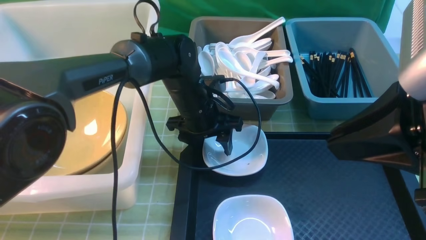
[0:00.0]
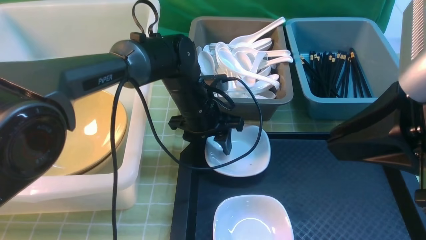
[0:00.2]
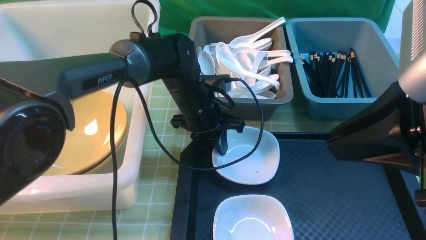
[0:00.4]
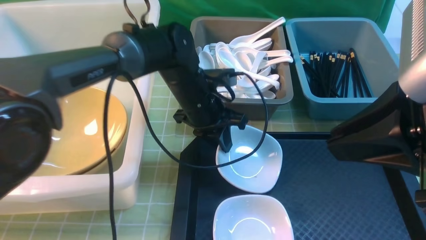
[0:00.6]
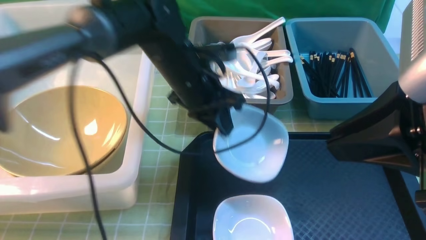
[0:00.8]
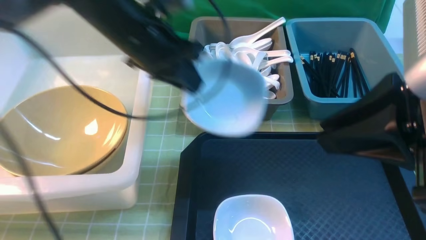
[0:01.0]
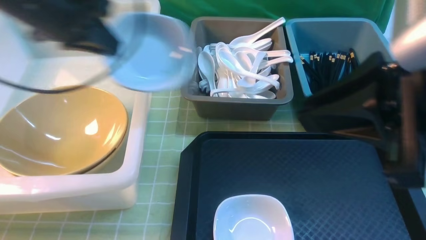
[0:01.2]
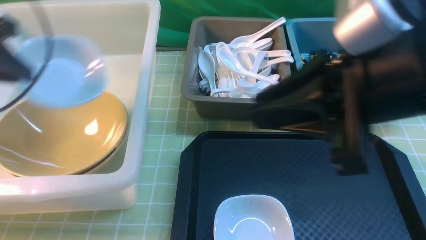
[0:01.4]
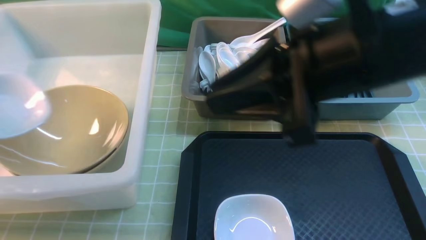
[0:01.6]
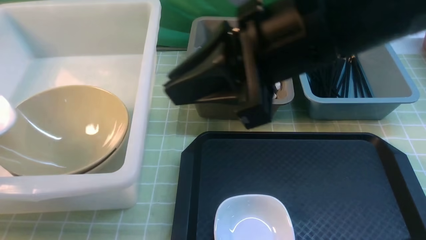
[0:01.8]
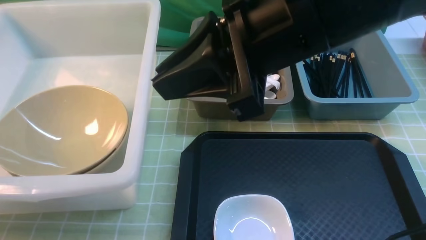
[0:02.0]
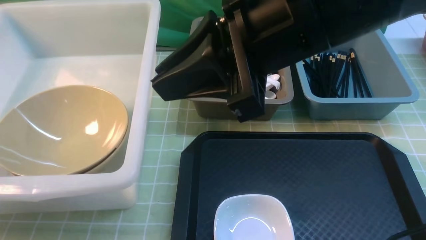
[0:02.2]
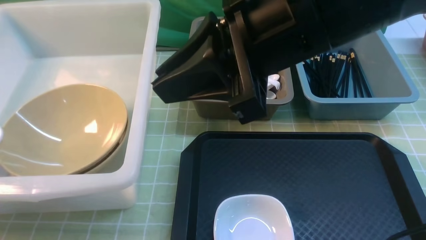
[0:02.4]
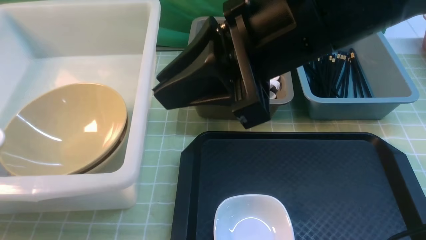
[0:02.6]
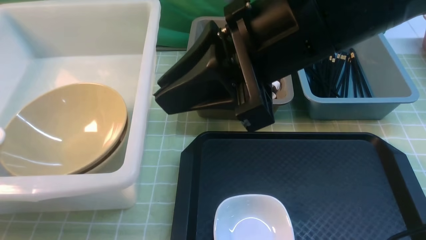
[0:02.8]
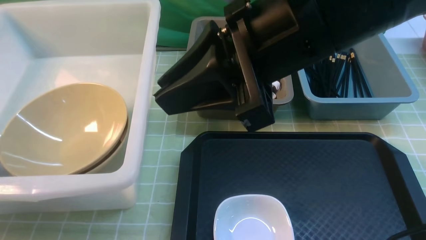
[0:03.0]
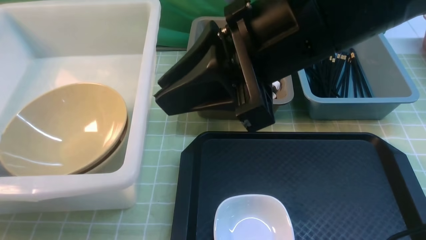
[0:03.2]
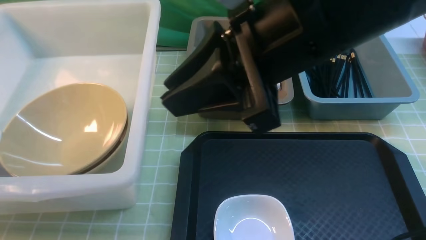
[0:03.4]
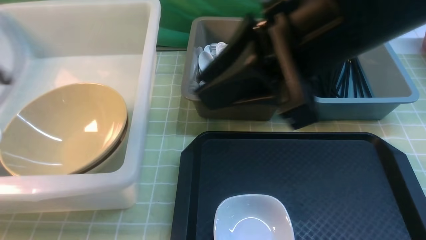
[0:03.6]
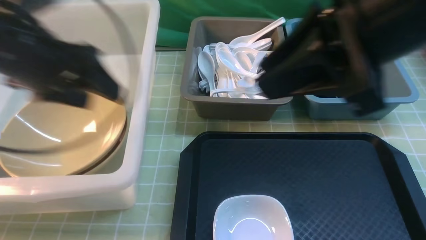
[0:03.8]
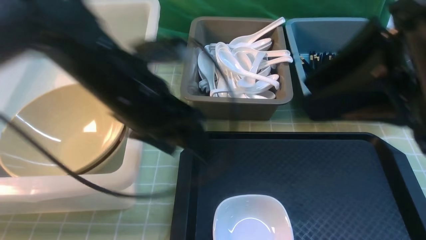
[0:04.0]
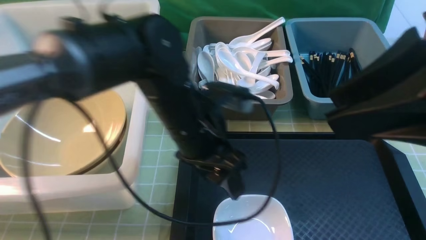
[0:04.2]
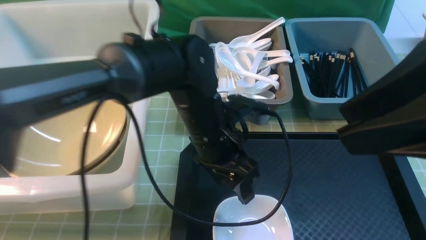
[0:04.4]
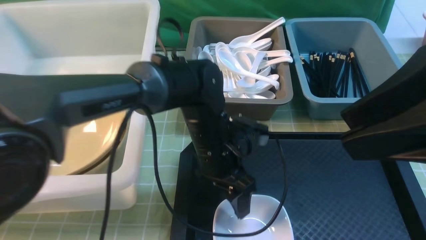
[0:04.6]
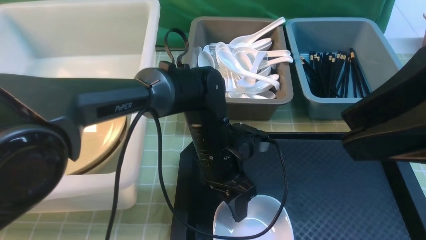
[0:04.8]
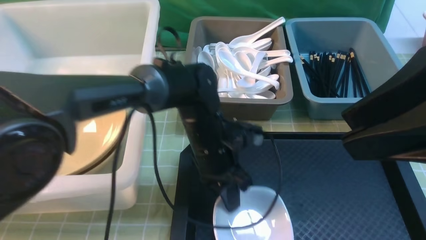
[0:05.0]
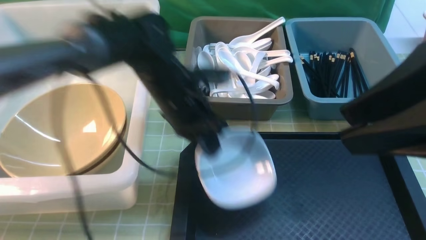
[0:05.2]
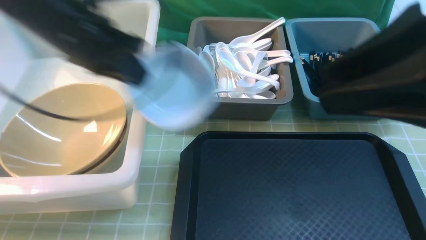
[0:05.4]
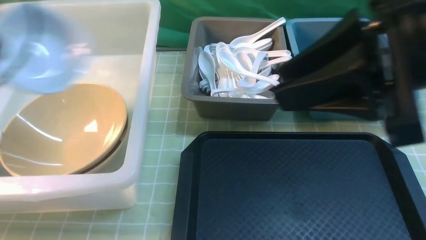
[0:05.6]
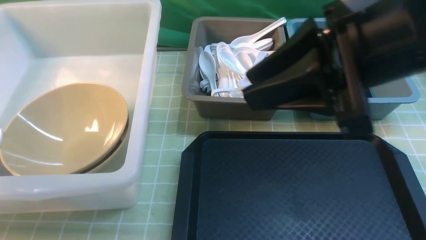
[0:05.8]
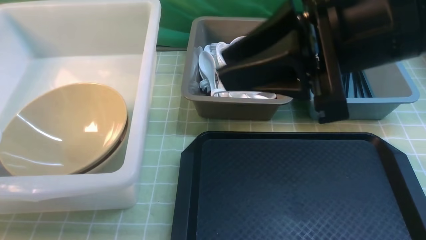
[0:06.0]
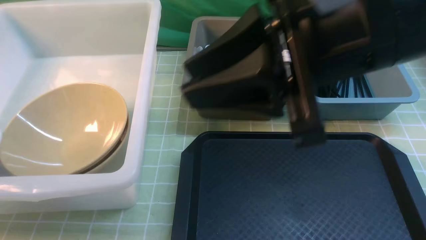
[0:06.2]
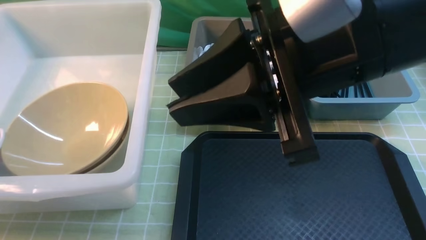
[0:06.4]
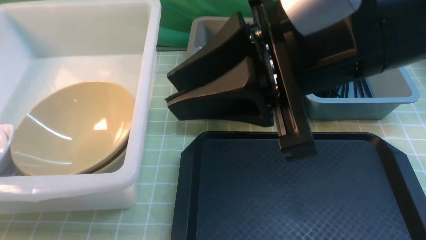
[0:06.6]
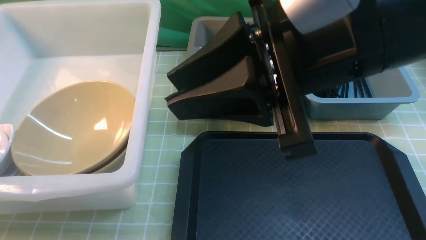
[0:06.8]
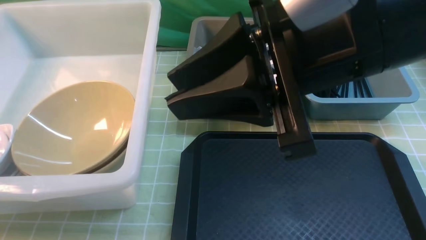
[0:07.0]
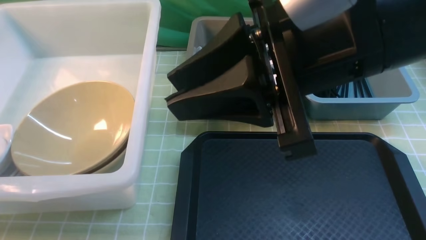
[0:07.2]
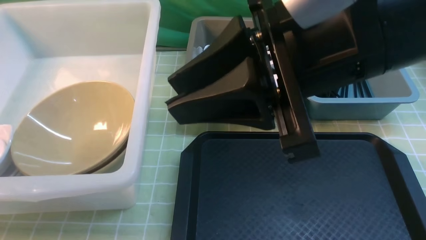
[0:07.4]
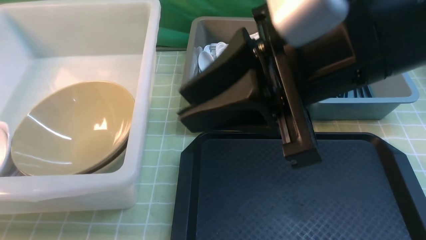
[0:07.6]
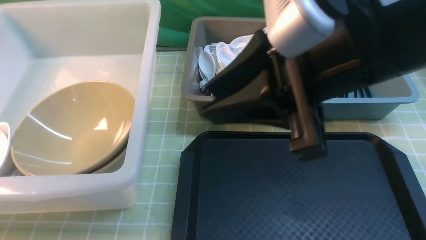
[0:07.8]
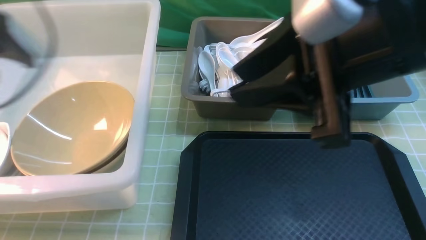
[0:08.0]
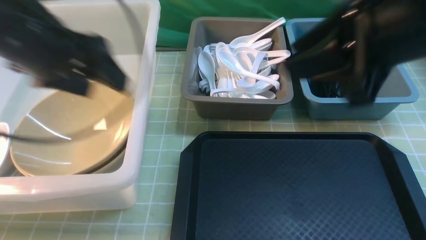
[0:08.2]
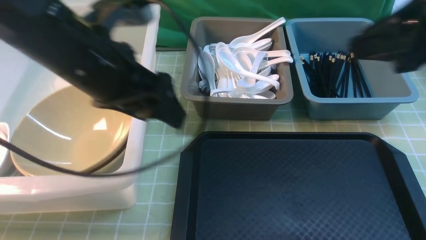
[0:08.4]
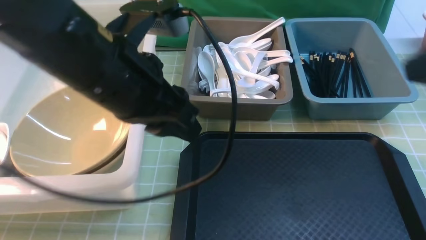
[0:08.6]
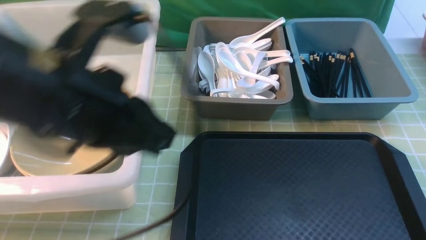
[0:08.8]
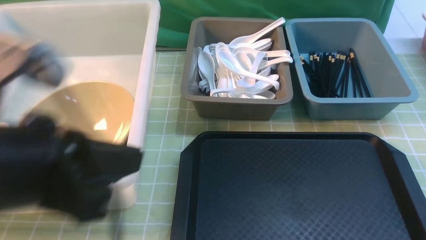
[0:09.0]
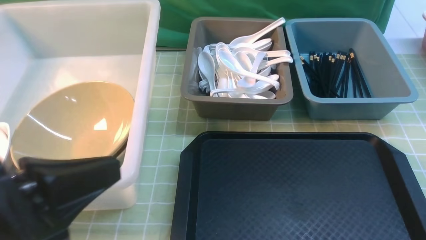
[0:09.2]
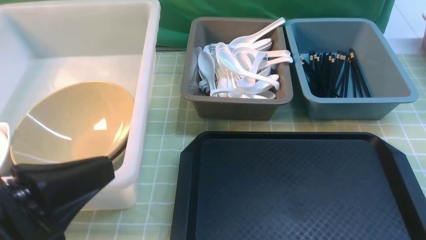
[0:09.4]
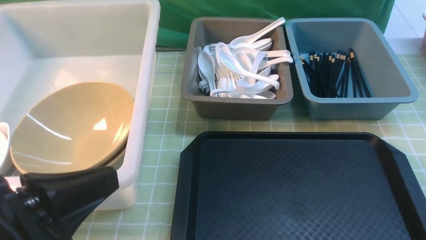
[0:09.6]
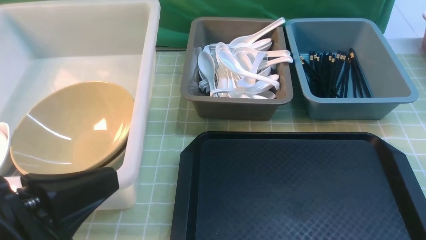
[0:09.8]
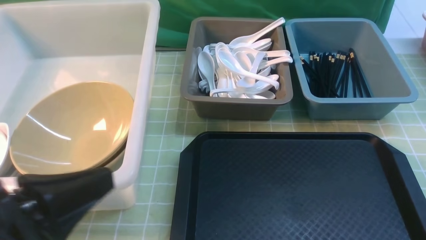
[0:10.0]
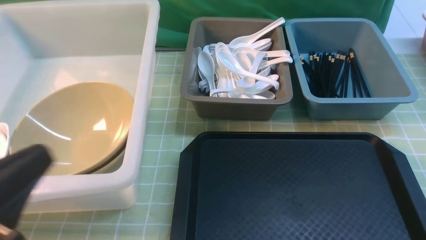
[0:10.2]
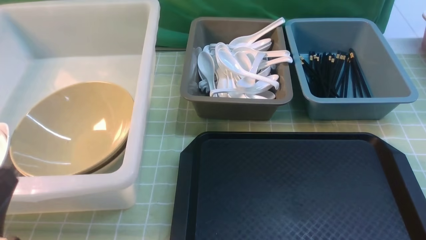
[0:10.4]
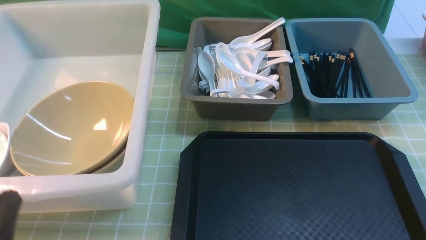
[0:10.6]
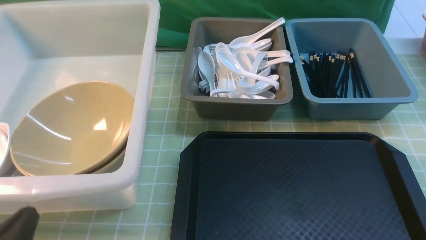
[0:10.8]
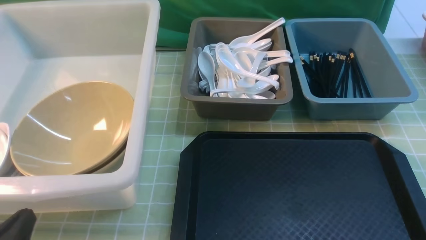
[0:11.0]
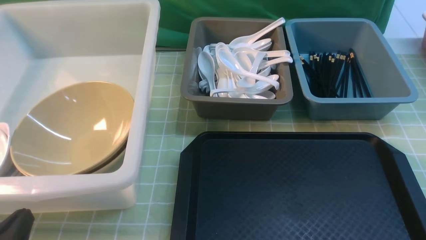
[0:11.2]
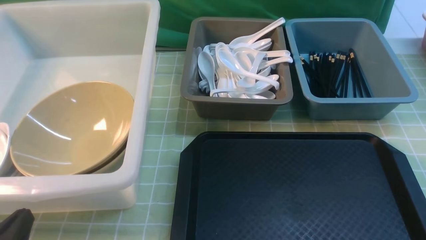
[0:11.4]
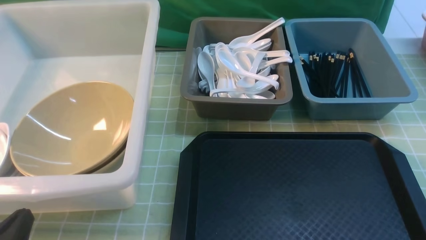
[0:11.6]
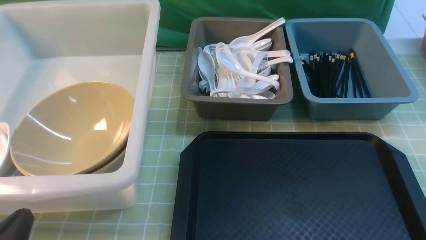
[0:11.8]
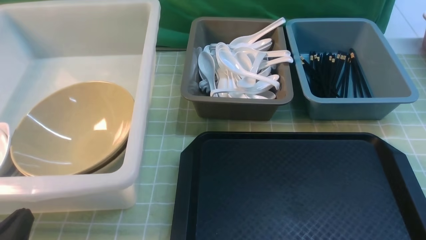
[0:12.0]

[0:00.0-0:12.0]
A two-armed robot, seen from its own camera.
Task of the whole recording: on green table put chopsticks spoon bowls plates into blue grey white boxes.
Step, 0:00.8 to 0:03.6: use the left arm to put the plate into the large storage box on the left.
Step, 0:03.8 to 0:05.0: use the left arm to grab the plate.
Step, 0:05.4 to 0:07.8: use the left arm to put the plate into the large storage box on the left.
0:00.0 to 0:01.6: The left gripper travels to the left by about 35 cm, and closes up, while the right gripper goes about 10 cm to the left and forward.
0:01.6 to 0:03.0: The left gripper goes approximately 5 cm to the left, and opens.
0:03.0 to 0:04.4: The left gripper is displaced to the right by roughly 50 cm. The right gripper moves to the right and backward, about 15 cm.
0:04.4 to 0:06.0: The left gripper travels to the left by some 40 cm, and closes up; the right gripper moves forward and to the left, approximately 10 cm.
0:06.0 to 0:07.6: The left gripper travels downward and back again, approximately 10 cm each way, and opens up.
0:07.6 to 0:09.0: The right gripper travels to the right, backward and downward by approximately 25 cm, and closes up; the left gripper goes roughly 30 cm to the right and backward, and closes its fingers.
0:09.0 to 0:10.4: The left gripper heads downward, to the left and backward, covering roughly 15 cm.
0:10.4 to 0:12.0: The left gripper is displaced downward by roughly 5 cm.

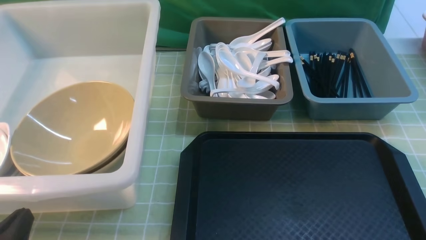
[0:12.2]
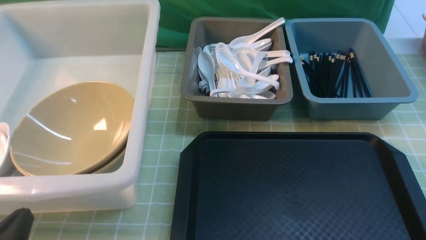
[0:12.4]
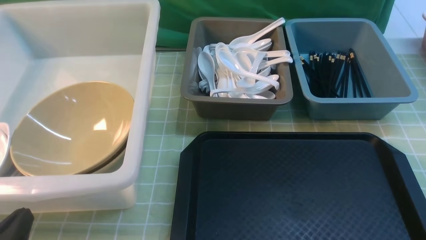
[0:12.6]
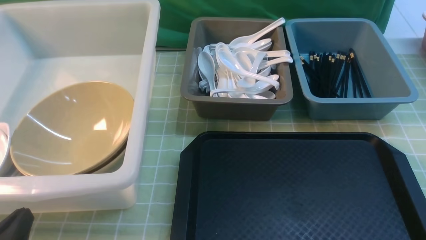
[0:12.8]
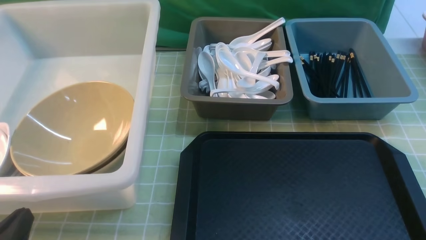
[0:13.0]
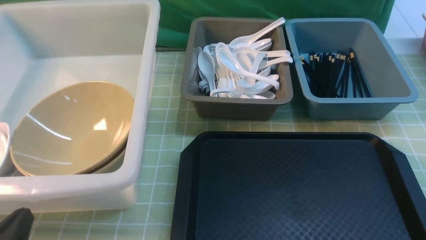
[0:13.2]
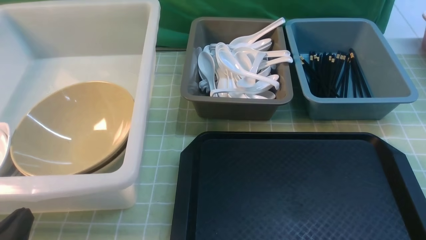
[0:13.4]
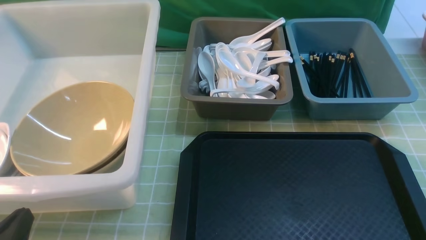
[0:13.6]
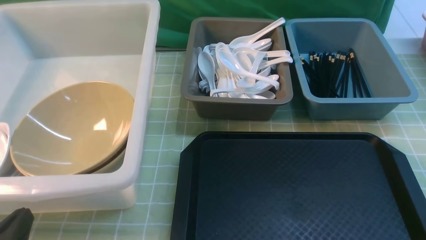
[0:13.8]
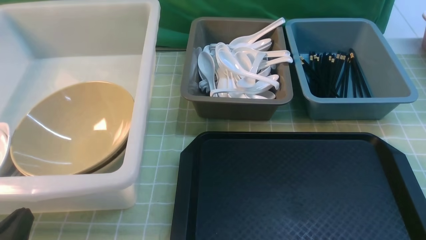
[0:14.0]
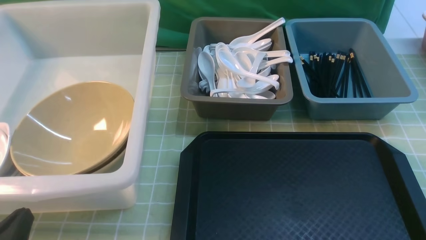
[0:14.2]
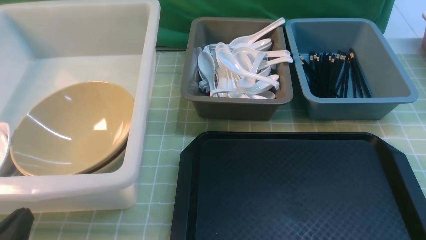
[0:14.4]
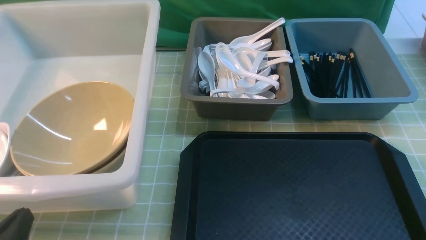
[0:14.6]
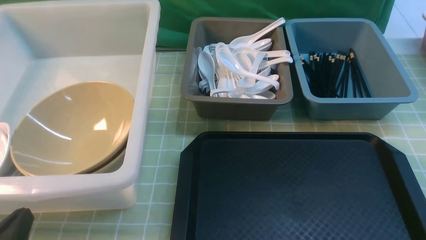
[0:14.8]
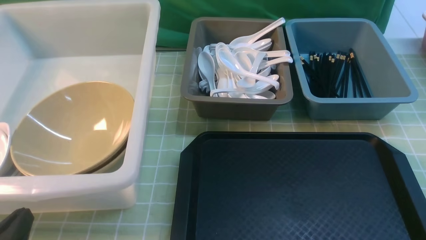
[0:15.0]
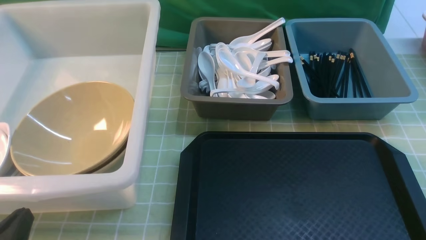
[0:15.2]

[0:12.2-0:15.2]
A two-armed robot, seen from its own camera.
Task of the whole recording: on green table put chopsticks spoon bowls plates into blue grey white boxes.
0:13.8 to 0:15.2: Neither gripper changes place.
